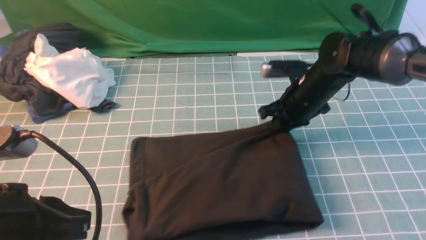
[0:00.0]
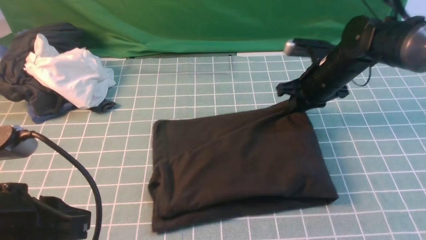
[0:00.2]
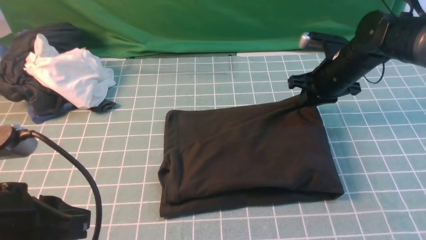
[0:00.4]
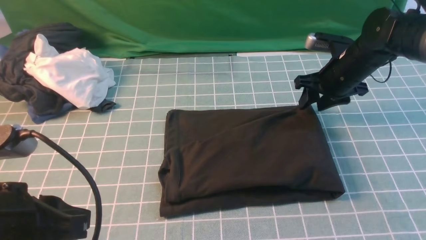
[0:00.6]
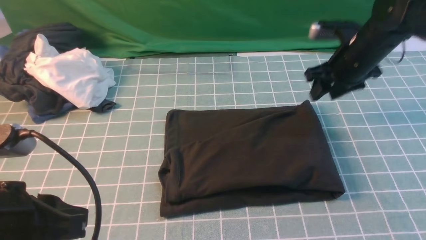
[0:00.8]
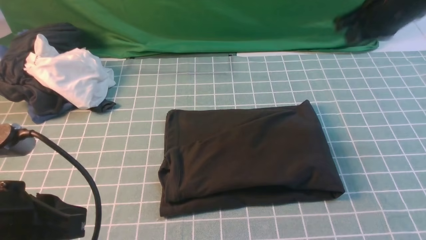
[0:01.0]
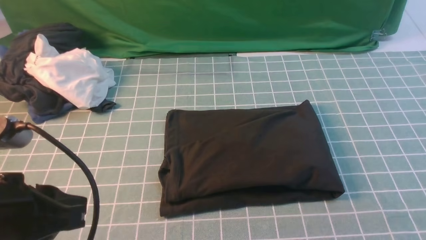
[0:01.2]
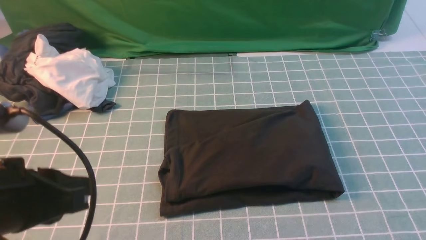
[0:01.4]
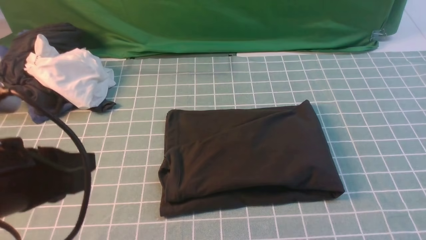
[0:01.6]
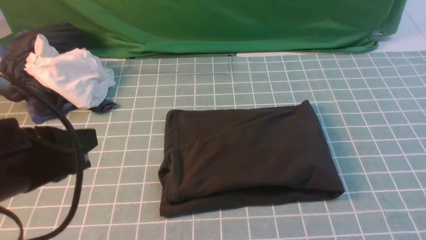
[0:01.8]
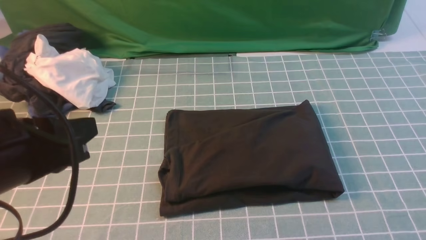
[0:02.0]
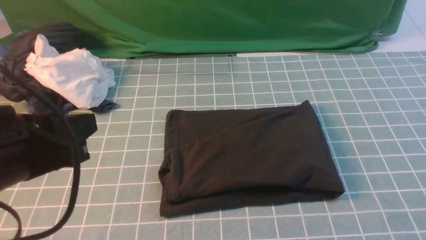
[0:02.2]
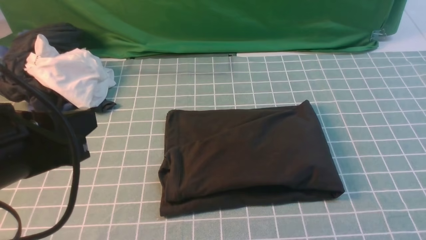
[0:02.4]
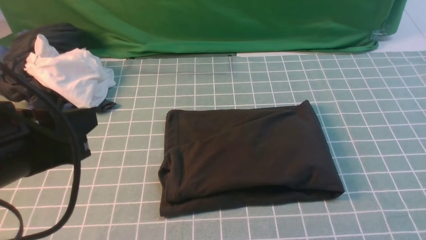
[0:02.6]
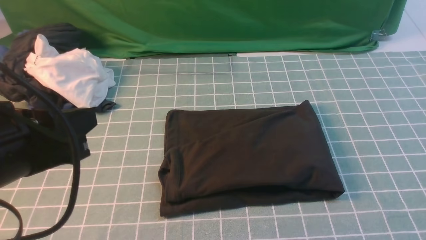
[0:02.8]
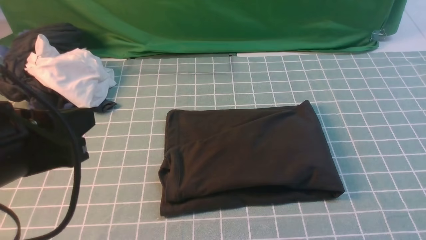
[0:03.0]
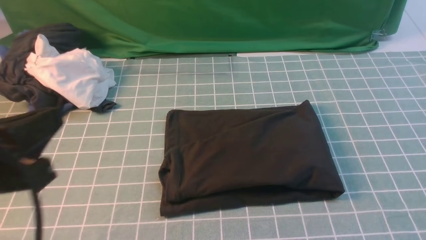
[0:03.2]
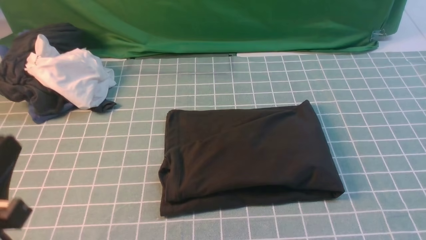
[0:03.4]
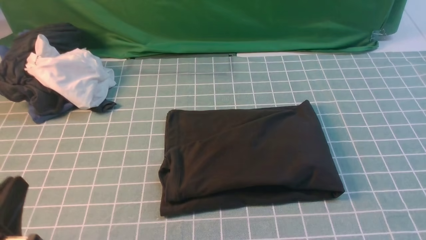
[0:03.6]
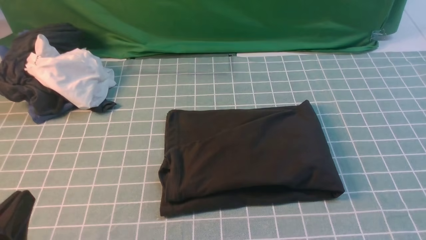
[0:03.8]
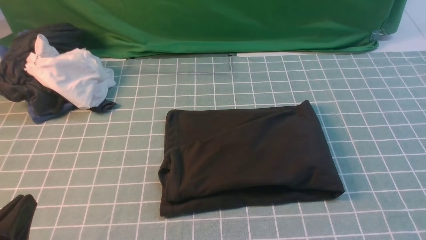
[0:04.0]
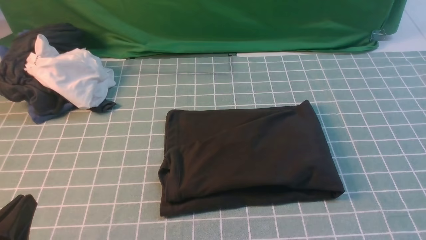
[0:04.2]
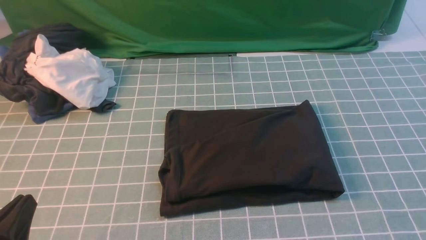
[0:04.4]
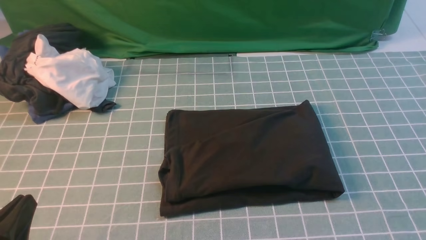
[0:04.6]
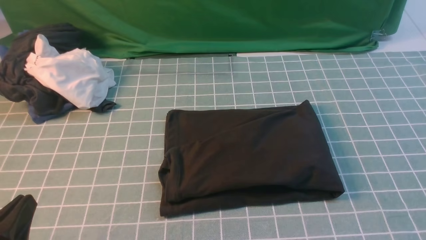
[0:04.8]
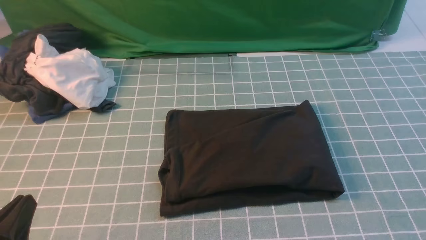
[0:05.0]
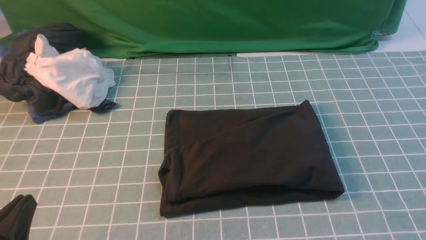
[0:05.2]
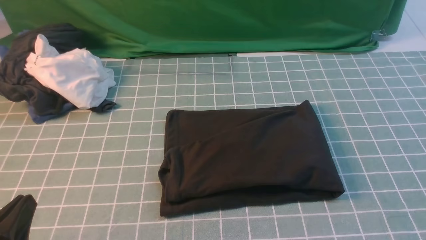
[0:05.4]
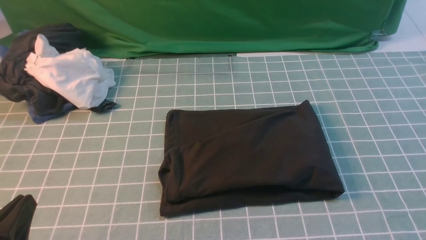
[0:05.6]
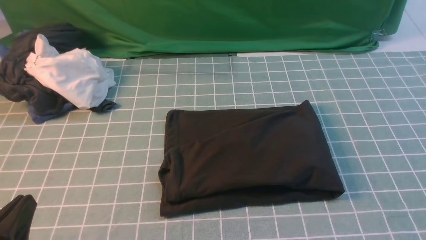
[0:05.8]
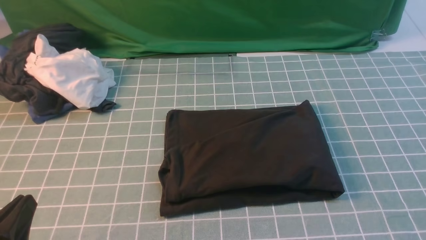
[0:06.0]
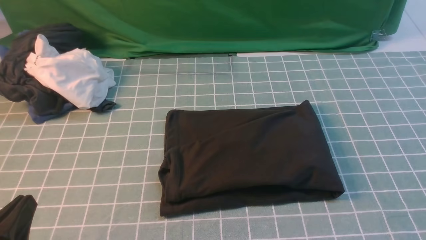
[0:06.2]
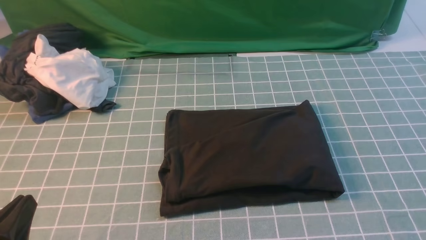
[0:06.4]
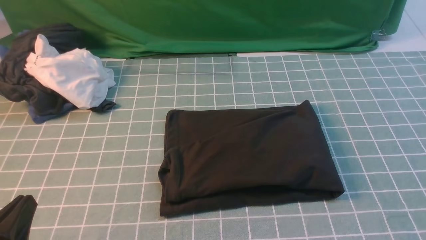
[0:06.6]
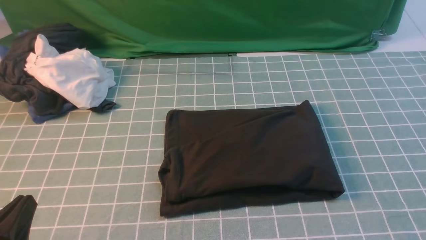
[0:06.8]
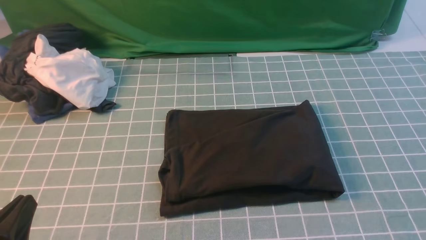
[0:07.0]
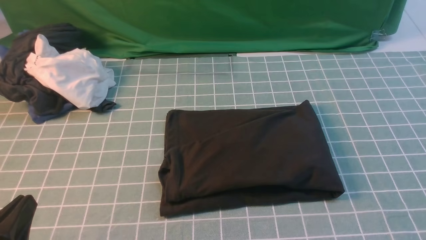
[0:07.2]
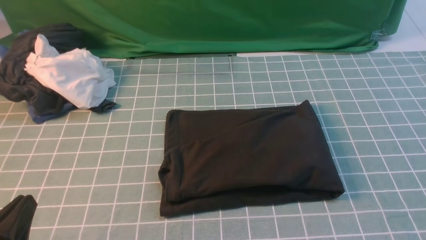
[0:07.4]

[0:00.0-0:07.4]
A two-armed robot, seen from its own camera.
0:00.0 to 0:01.4: The right gripper goes some 40 cm upward, backward and to the right, and opens and closes again.
0:03.0 to 0:04.4: The left gripper heads downward and backward, covering about 15 cm.
0:06.0 to 0:07.4: Both grippers stay about where they are.

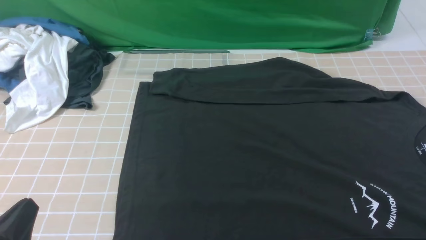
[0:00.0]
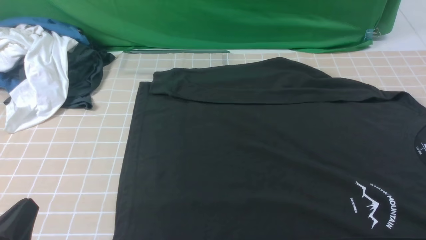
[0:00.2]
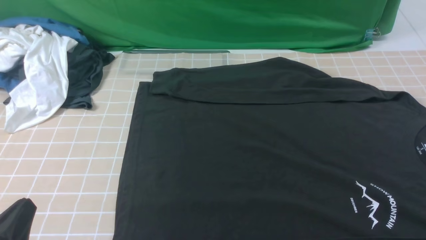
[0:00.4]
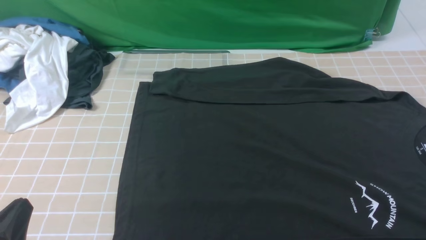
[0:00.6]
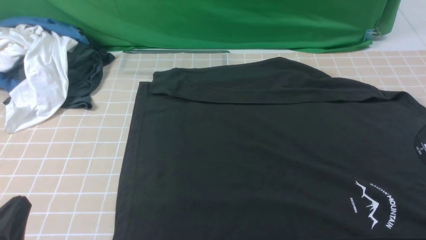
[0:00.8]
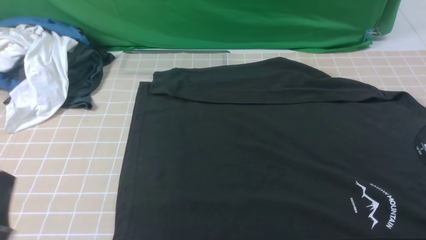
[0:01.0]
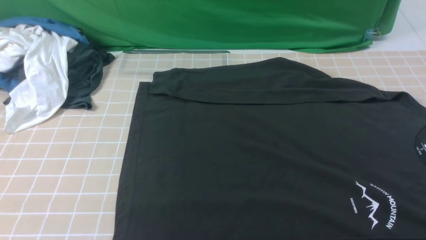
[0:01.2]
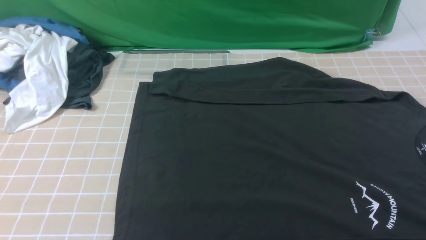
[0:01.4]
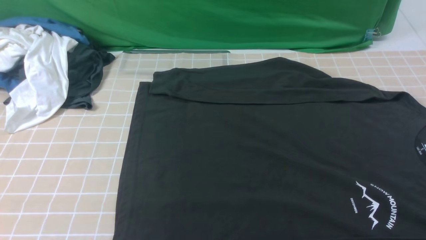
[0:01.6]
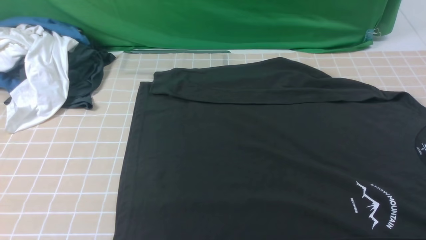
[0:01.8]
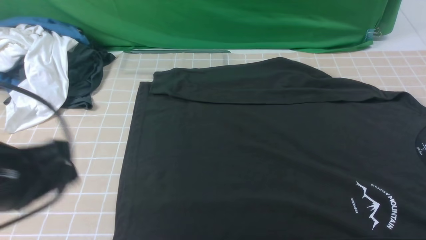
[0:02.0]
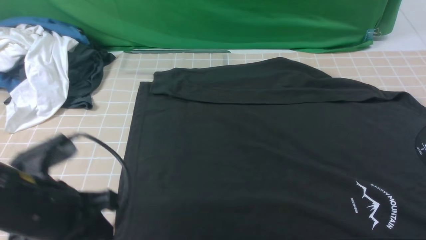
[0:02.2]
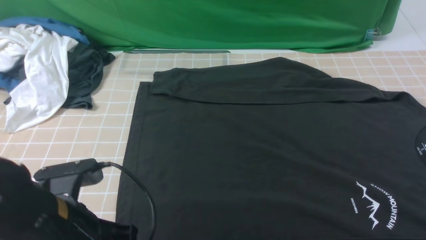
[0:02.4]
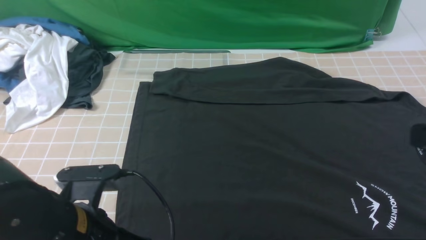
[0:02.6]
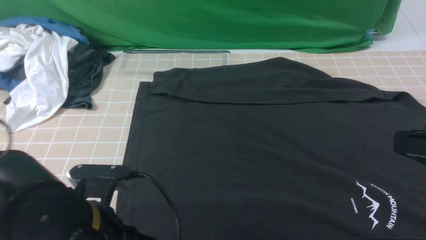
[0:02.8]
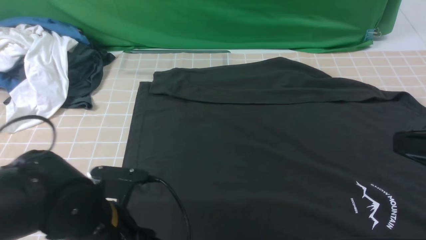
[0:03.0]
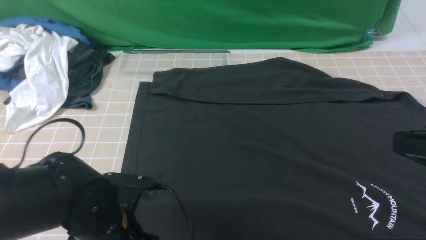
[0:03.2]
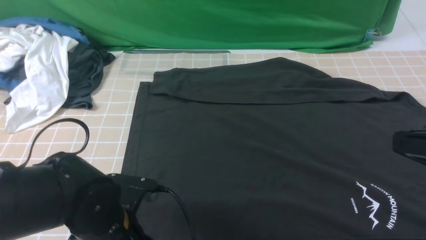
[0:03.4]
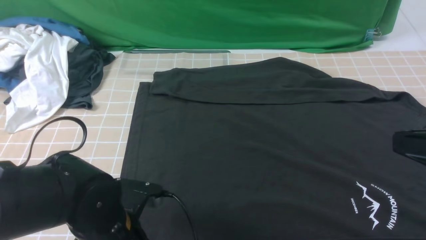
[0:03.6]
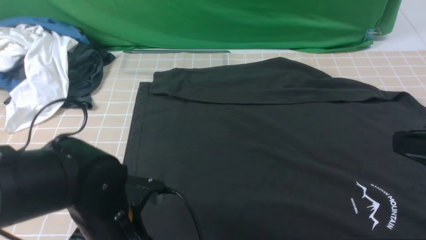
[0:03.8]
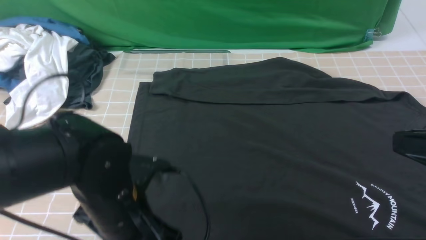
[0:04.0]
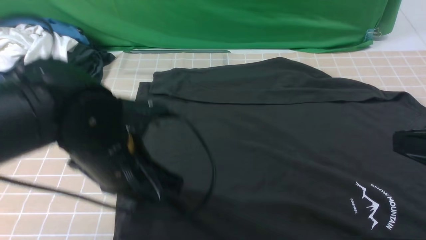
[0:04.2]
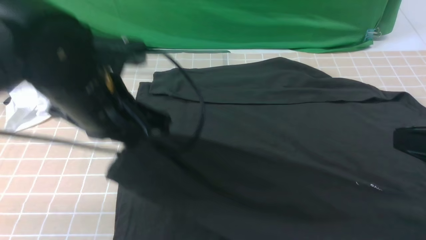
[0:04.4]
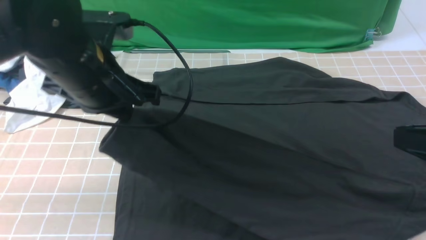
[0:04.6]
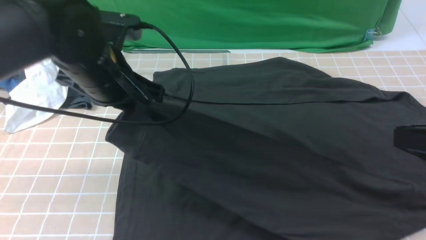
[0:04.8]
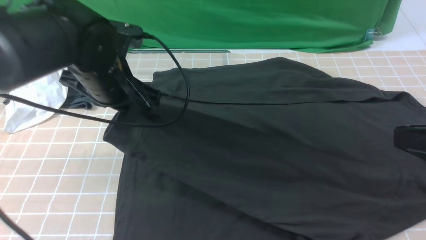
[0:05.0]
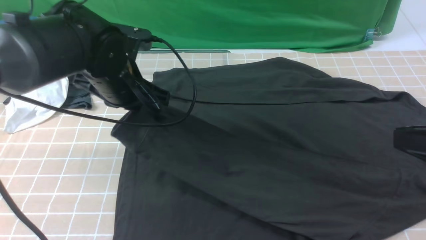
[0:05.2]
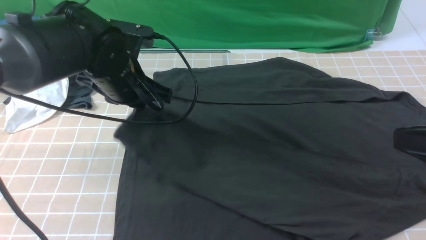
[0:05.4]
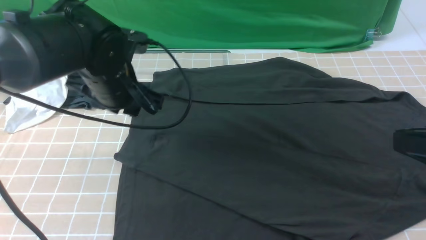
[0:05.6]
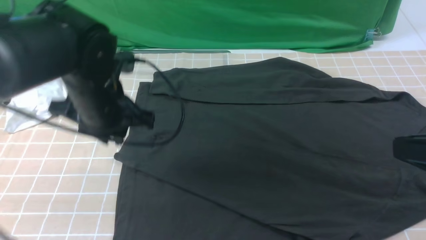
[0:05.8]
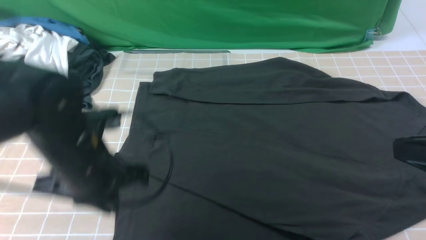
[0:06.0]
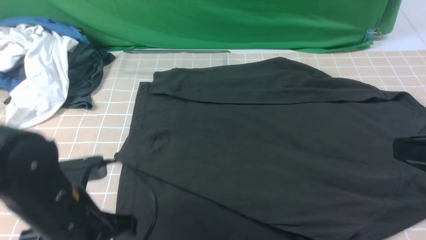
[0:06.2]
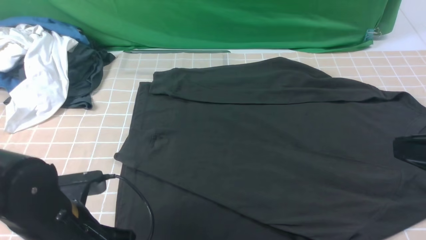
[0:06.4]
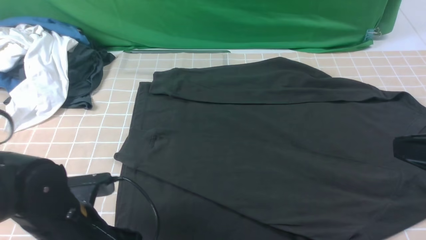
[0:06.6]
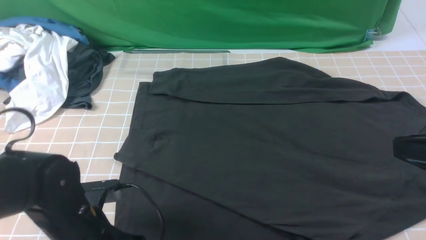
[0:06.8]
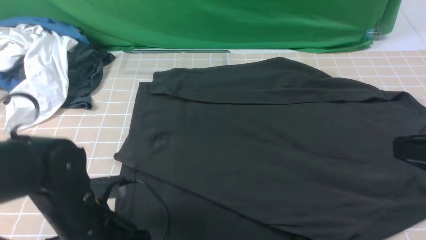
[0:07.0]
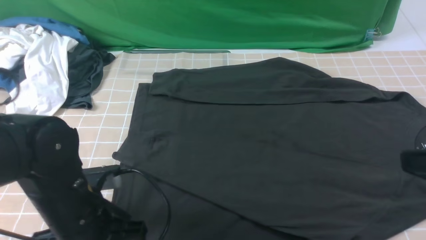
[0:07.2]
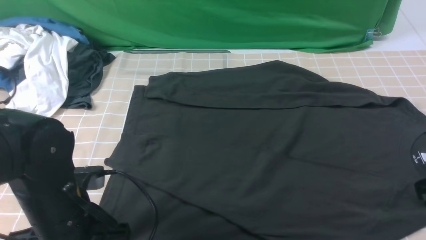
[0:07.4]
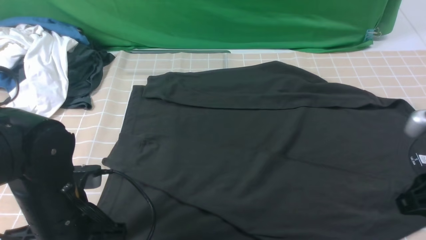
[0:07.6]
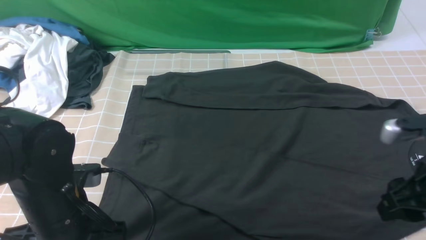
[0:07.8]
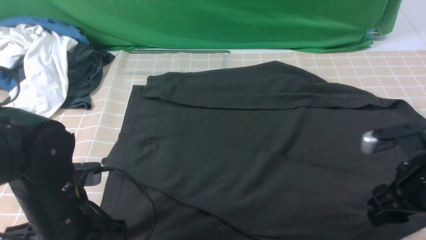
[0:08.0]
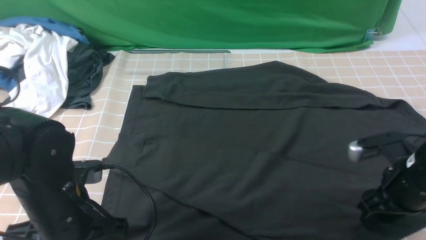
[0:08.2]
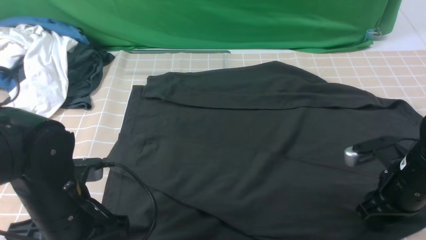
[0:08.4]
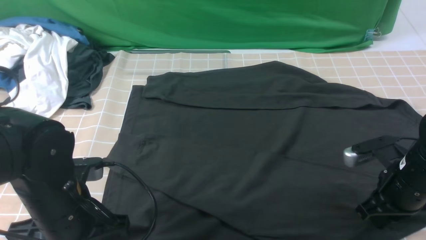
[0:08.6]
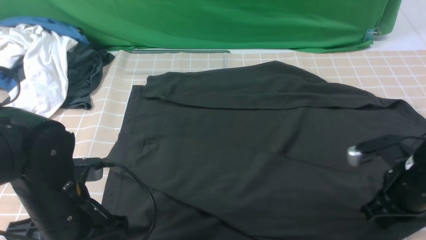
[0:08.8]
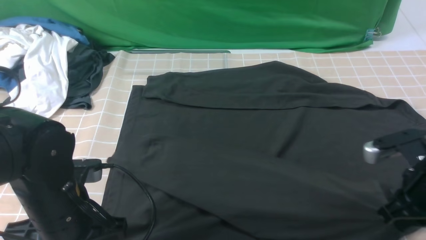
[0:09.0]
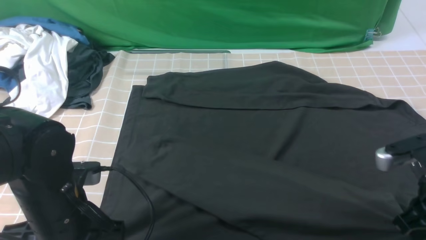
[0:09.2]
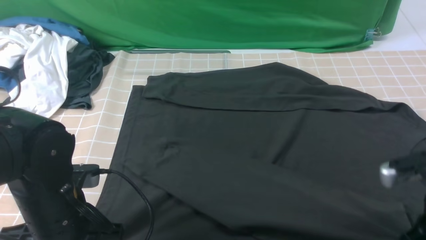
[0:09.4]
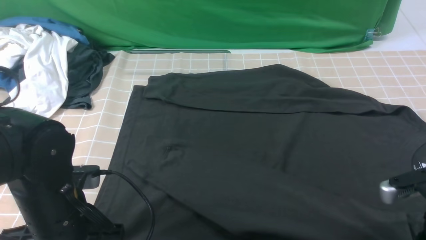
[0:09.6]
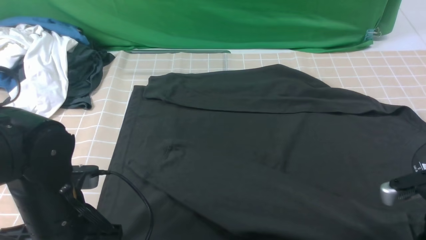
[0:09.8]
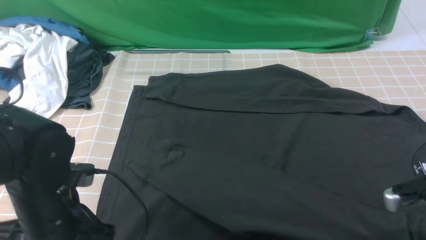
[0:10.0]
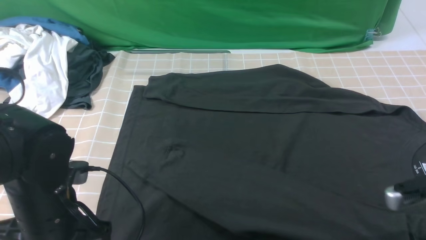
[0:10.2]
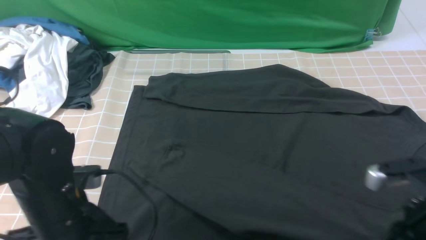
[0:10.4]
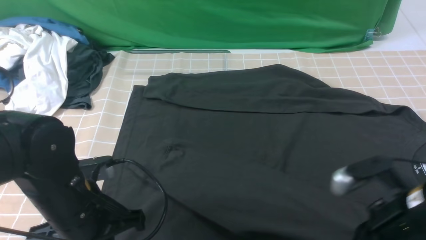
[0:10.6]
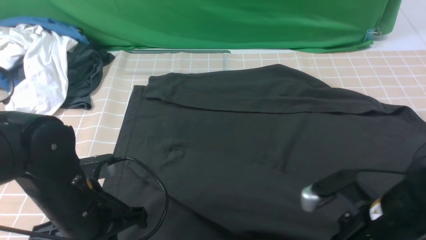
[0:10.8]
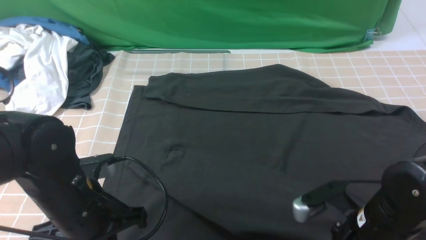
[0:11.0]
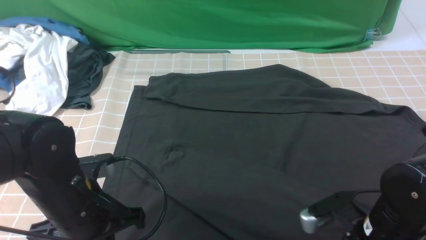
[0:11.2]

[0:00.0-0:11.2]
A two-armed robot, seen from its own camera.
Step, 0:00.0 to 0:03.4: use the left arm to clamp the cuff closest to it.
Step, 0:03.6 to 0:05.4: use the left arm to drag and place the cuff at the centered position on the left edge of the fabric.
0:00.0 to 0:01.6: The left gripper heads upward, covering about 10 cm.
0:01.6 to 0:03.2: The right gripper shifts about 15 cm upward, forward and to the left, and closes up, while the left gripper is displaced downward, to the right and forward by about 20 cm, and opens its fingers.
0:03.2 to 0:04.8: The left gripper moves forward and upward, approximately 20 cm, and closes up.
0:04.8 to 0:06.4: The left gripper travels backward and downward by approximately 20 cm, and opens up.
0:06.4 to 0:08.0: The right gripper is displaced downward and forward by approximately 15 cm, and opens up, while the left gripper closes up.
0:08.0 to 0:09.6: The right gripper heads backward, covering approximately 5 cm, and closes its fingers.
0:09.6 to 0:11.2: The left gripper opens and closes again; the right gripper goes roughly 10 cm to the left.
